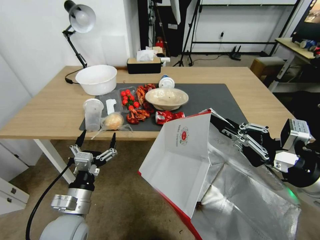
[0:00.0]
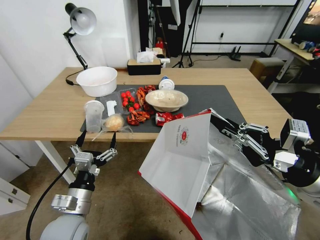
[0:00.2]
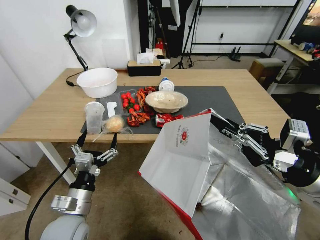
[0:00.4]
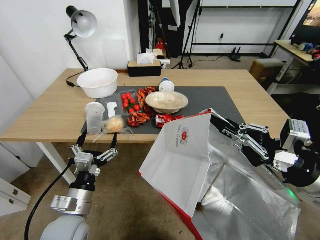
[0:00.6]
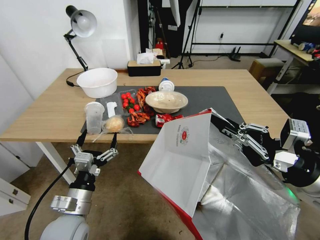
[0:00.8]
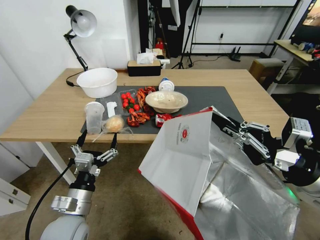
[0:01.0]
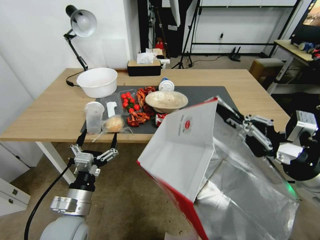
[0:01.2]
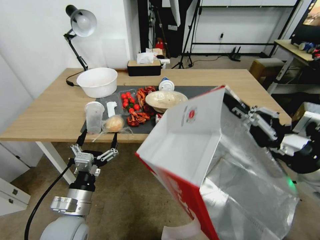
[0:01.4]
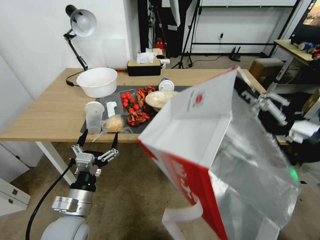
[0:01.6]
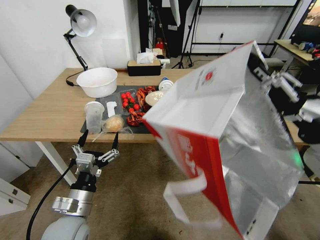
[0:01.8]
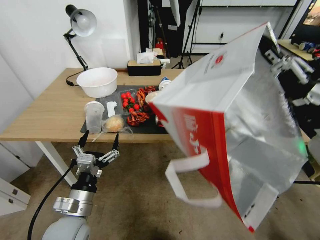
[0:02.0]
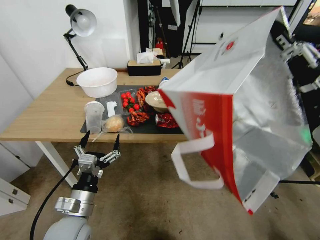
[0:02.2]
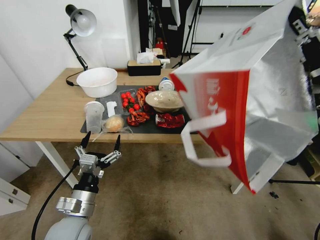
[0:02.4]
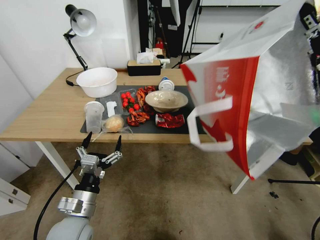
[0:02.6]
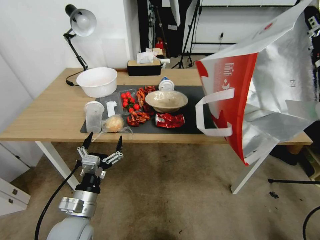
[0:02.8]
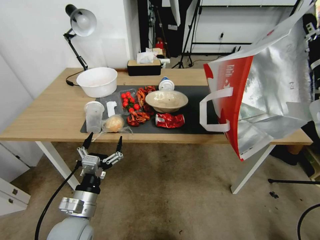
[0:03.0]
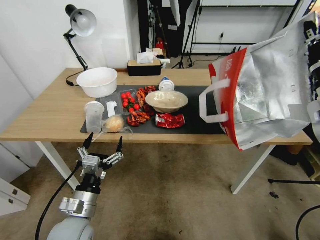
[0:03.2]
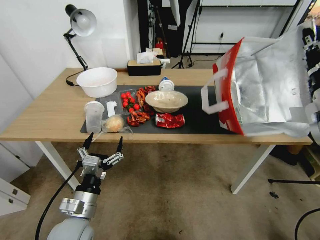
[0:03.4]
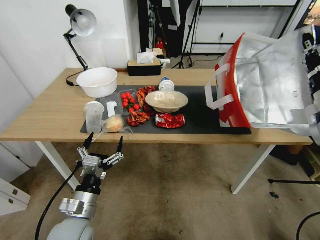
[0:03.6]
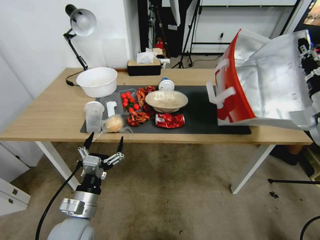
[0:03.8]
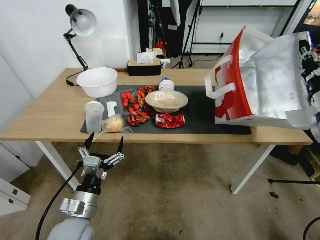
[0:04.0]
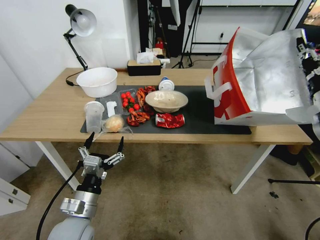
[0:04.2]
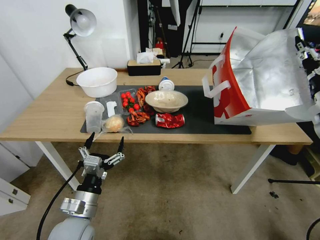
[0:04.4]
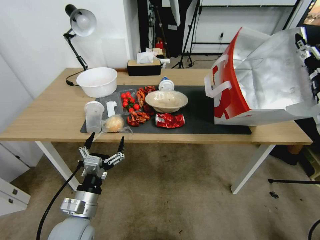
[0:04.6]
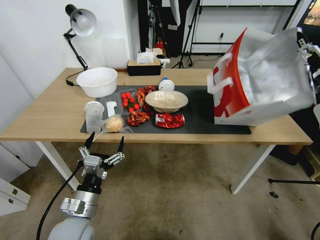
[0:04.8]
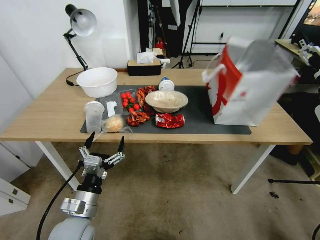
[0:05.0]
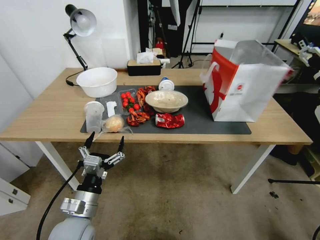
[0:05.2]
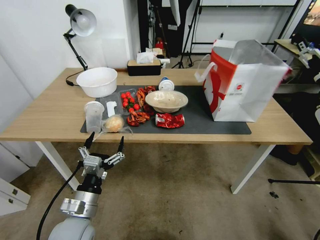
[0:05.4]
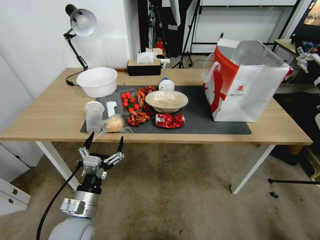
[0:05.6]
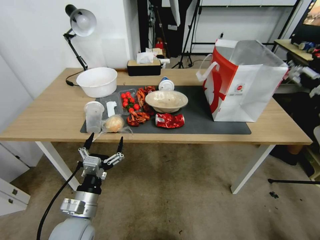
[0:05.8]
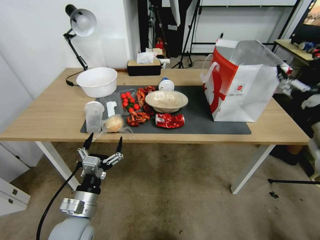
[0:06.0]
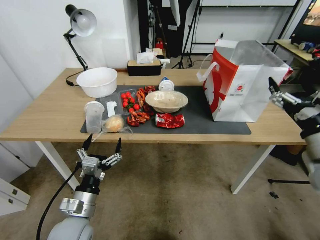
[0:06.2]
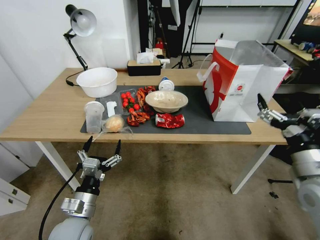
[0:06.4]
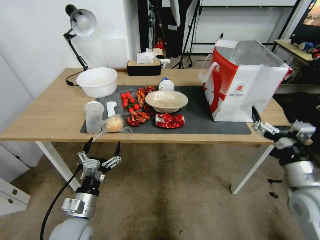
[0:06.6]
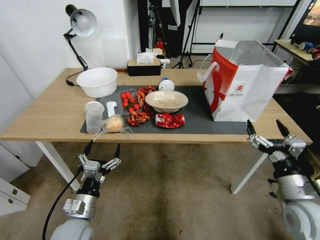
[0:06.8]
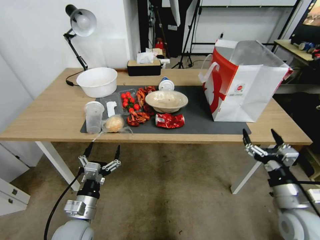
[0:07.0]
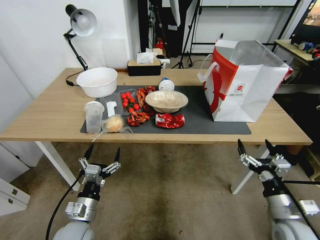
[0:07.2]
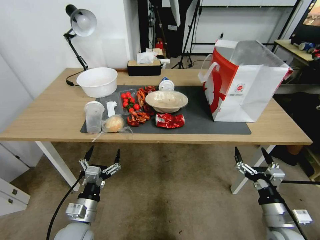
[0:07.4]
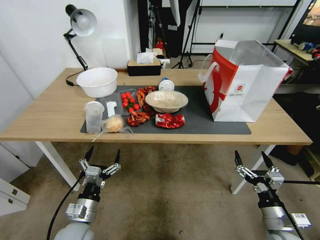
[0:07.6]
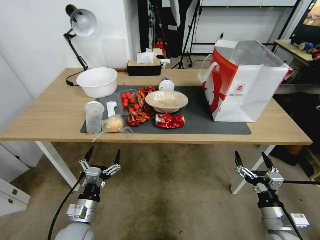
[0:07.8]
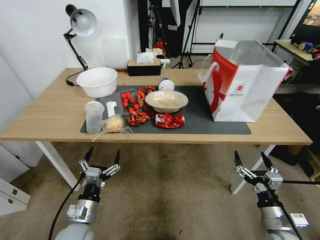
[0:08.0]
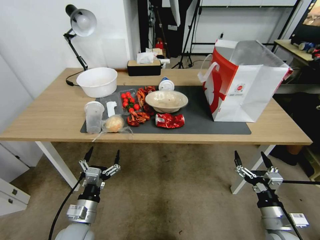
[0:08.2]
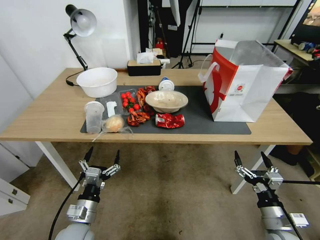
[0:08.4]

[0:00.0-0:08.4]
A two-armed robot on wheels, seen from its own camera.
Task of the whole recording: Pick up the food delivery bag from the floor and place it on the table.
0:01.4 to 0:02.8: The right gripper shifts about 10 cm forward and upward.
0:02.8 to 0:04.2: The right gripper is displaced to the right, downward and forward by roughly 10 cm.
0:04.2 to 0:05.6: The right gripper opens.
0:05.6 to 0:07.0: The left gripper changes place by about 5 cm. The right gripper moves downward, backward and to the left, some 25 cm.
0:07.0 to 0:08.4: The right gripper heads downward, covering approximately 5 cm.

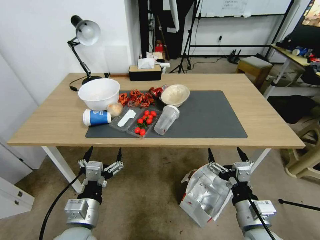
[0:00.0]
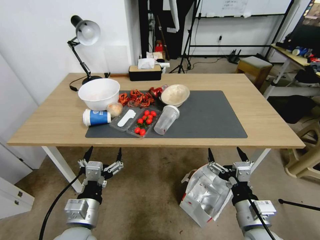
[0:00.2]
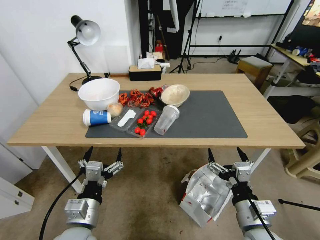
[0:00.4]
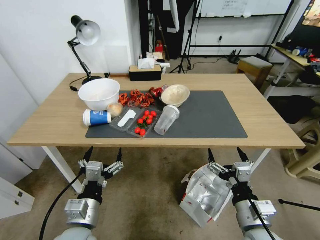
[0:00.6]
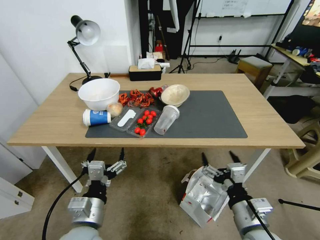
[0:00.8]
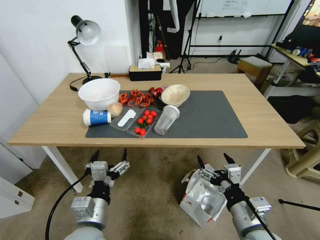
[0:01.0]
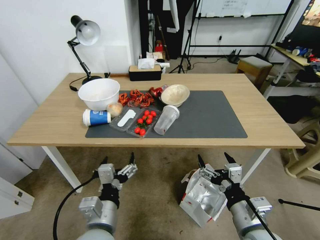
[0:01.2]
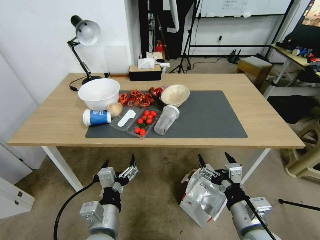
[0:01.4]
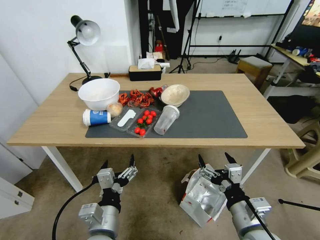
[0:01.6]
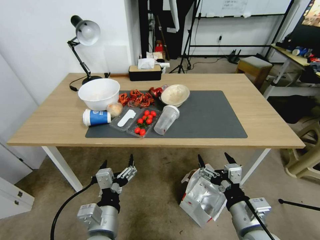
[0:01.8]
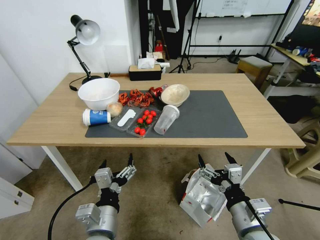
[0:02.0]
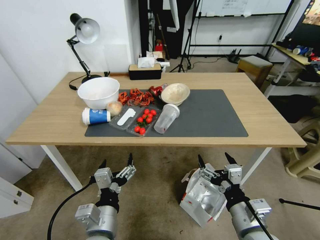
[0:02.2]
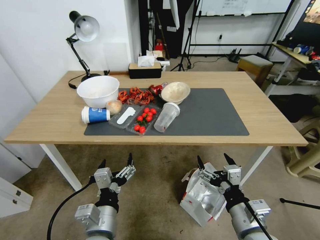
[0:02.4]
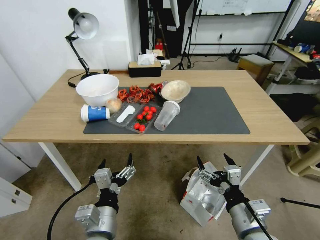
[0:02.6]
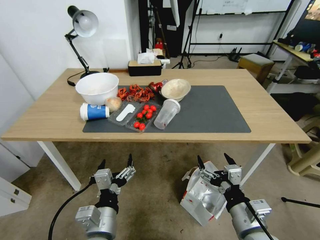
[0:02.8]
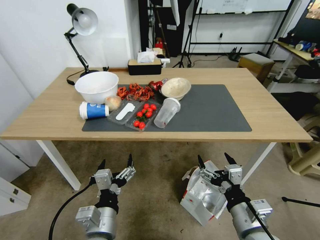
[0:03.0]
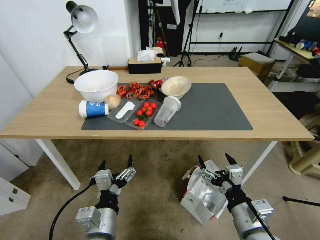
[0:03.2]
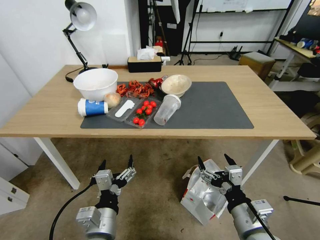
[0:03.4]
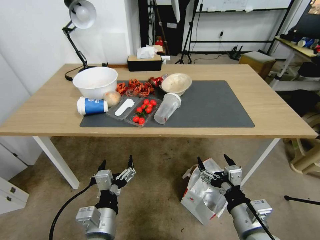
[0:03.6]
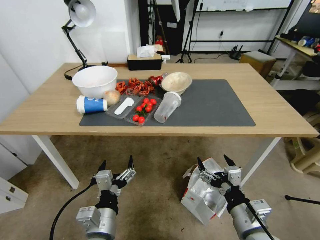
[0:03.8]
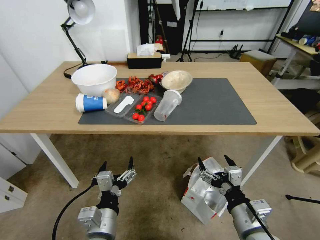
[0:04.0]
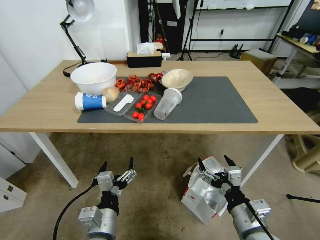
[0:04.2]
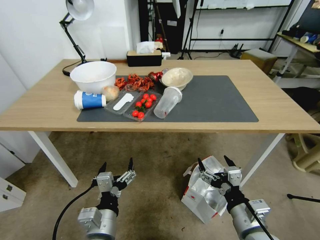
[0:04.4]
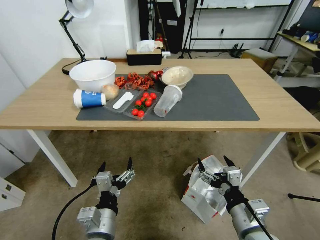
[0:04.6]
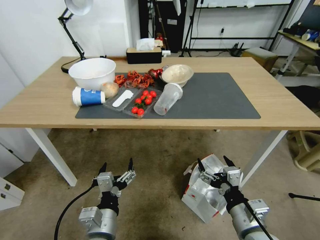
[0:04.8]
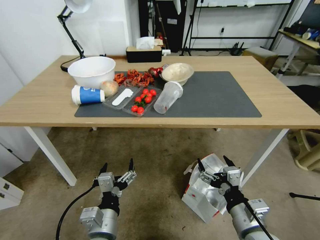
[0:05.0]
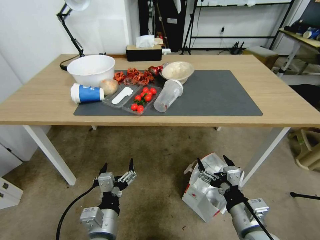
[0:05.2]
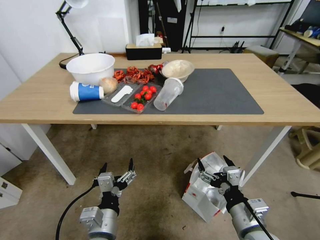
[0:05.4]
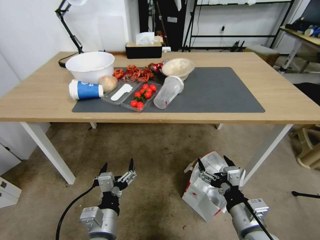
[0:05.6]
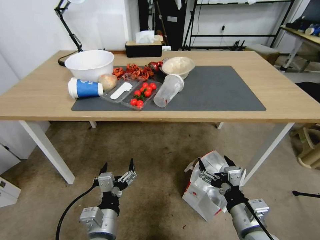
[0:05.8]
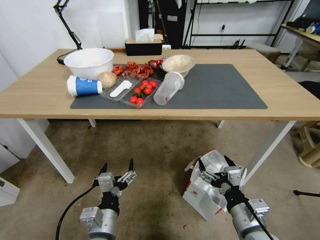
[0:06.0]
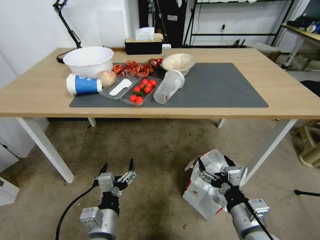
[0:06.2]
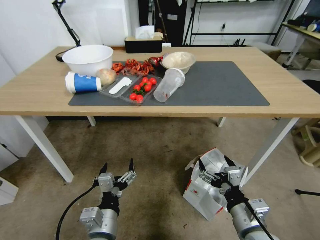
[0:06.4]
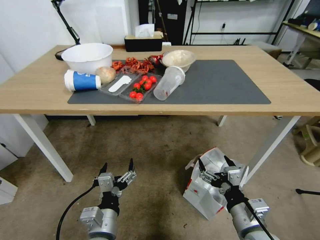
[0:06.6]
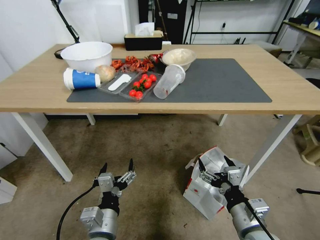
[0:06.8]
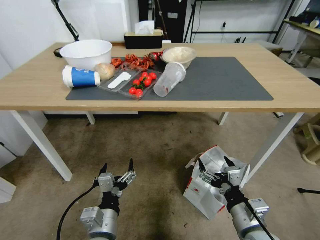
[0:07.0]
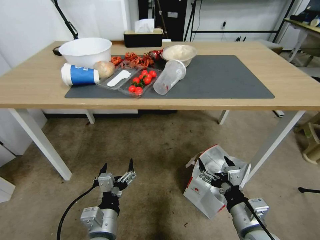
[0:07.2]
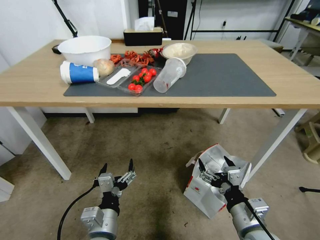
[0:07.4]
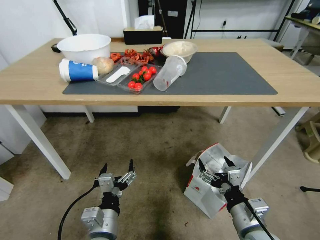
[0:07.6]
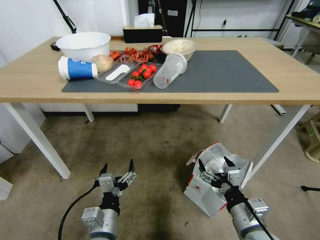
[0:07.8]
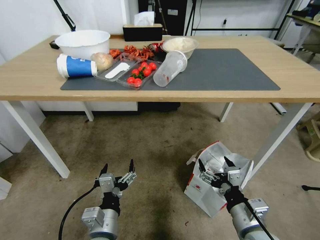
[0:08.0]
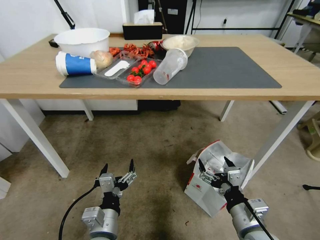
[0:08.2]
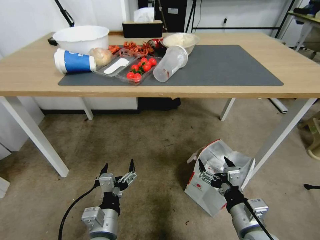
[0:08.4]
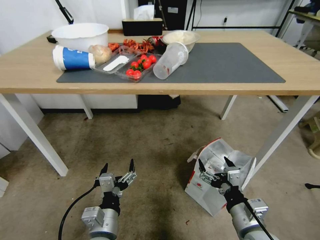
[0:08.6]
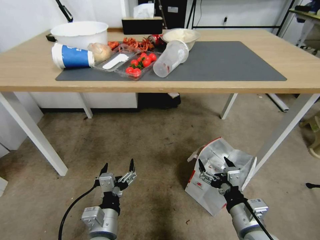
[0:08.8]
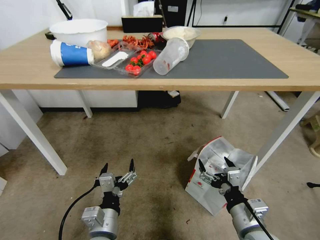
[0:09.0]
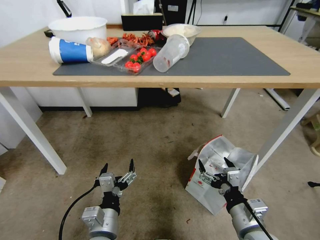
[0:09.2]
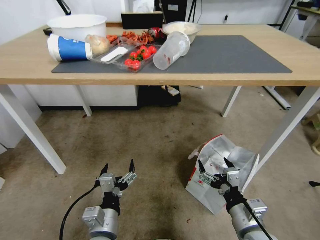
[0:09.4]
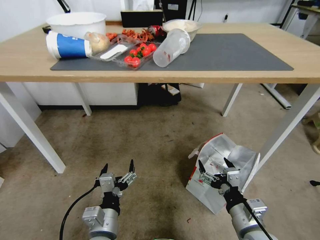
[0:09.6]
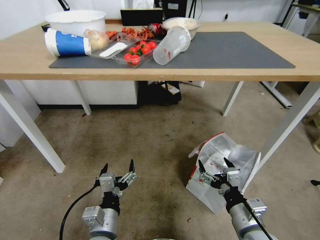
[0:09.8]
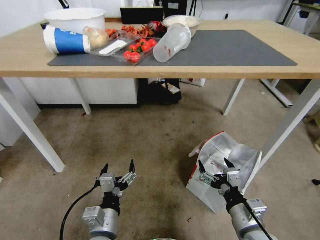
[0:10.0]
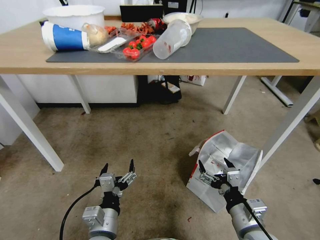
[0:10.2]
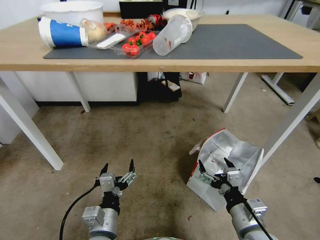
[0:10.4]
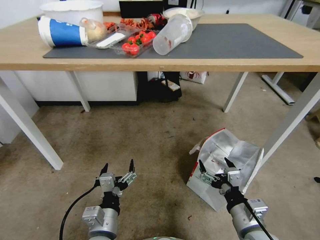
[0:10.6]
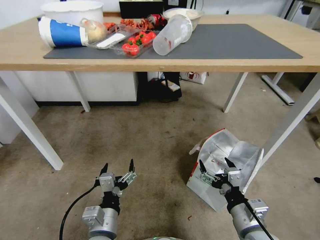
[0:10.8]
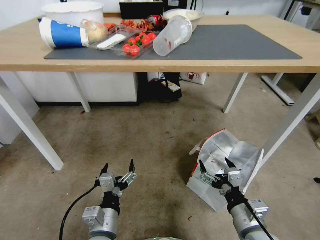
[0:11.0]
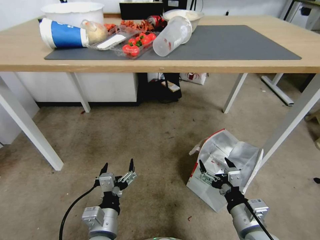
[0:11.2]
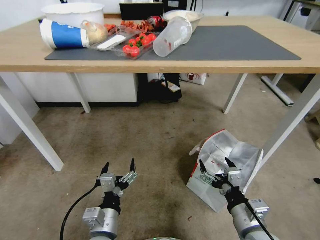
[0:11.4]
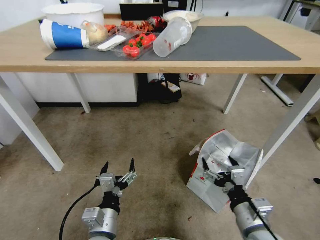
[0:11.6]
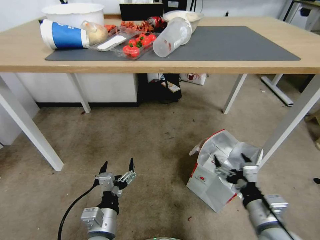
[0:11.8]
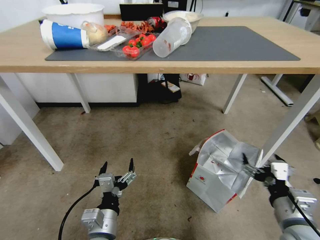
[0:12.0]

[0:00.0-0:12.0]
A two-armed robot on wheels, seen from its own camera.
Task of the whole recording: Pick up the food delivery bag from the floor and place it on the table.
0:10.4 to 0:12.0: The right gripper shifts roughly 10 cm to the right and upward.

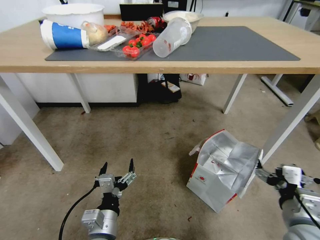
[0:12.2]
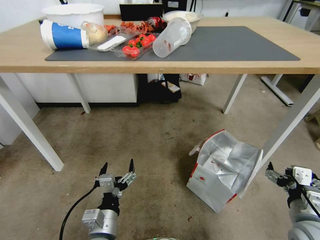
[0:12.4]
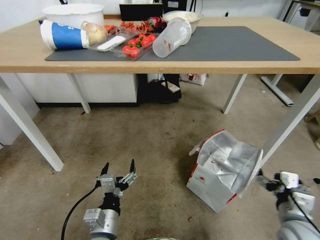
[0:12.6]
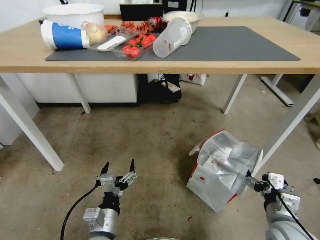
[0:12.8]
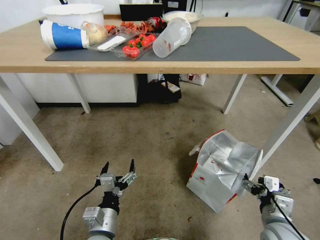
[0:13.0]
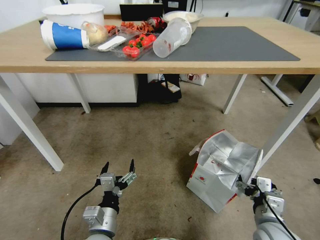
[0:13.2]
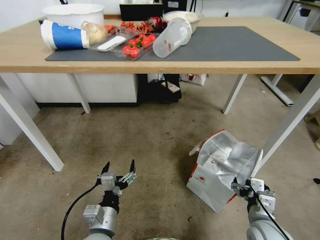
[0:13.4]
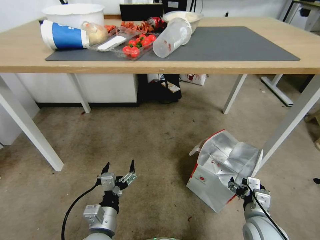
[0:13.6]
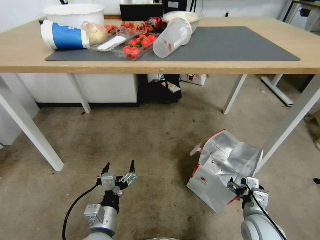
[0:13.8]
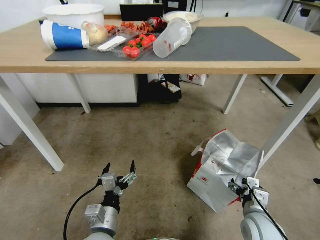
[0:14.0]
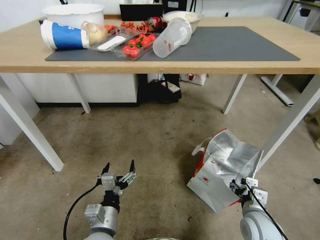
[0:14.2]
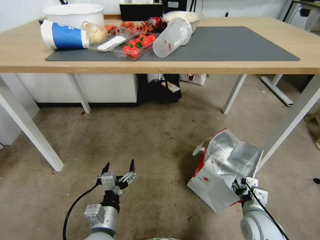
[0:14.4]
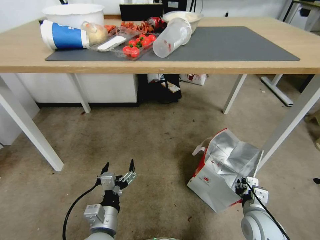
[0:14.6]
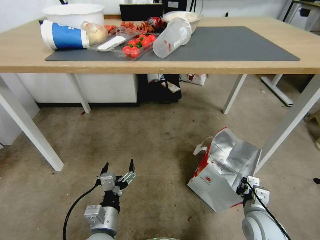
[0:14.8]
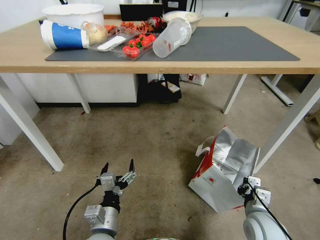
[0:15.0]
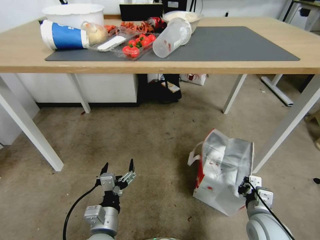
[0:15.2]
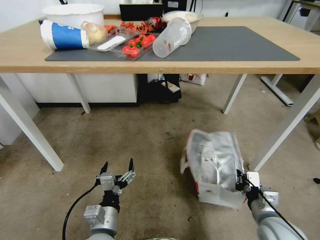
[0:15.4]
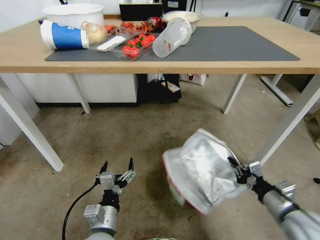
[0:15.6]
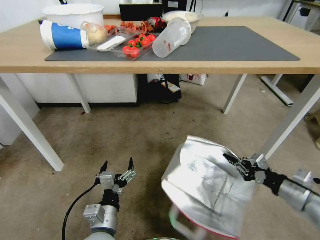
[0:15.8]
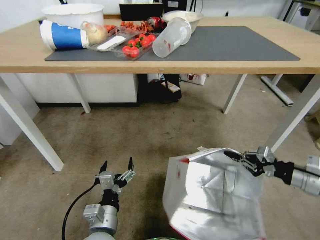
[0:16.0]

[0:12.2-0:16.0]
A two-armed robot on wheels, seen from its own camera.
Task of the whole recording: Pick up the food delivery bag from the floor and place it on the table.
0:12.2 to 0:13.4: The right gripper is displaced downward by roughly 10 cm.
0:13.4 to 0:14.8: The right gripper closes its fingers.
0:14.8 to 0:16.0: The right gripper shifts some 20 cm to the right and upward.
